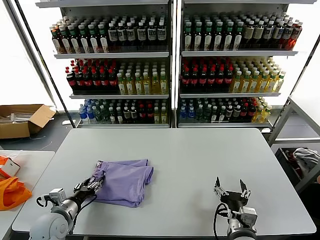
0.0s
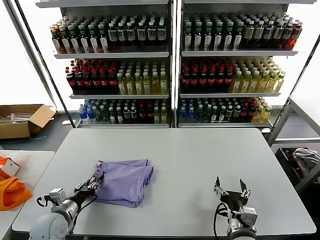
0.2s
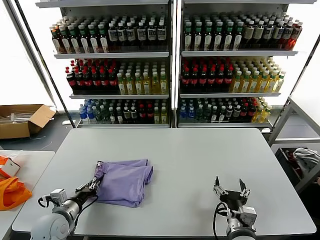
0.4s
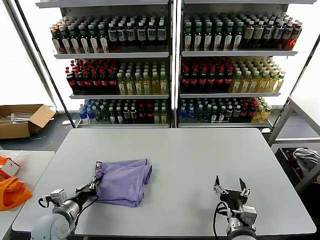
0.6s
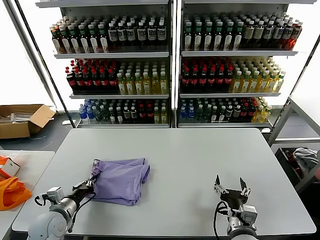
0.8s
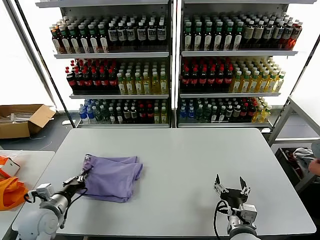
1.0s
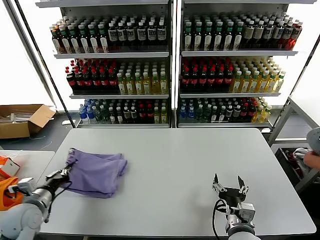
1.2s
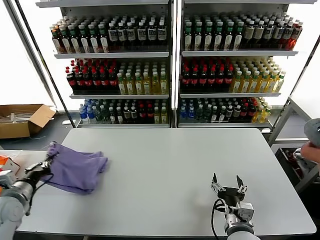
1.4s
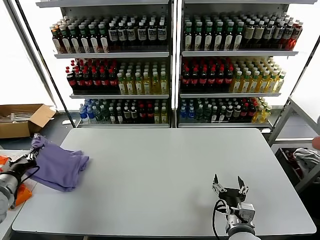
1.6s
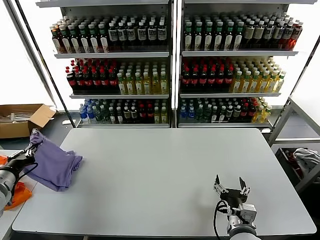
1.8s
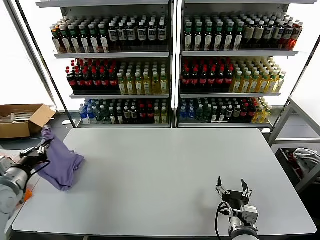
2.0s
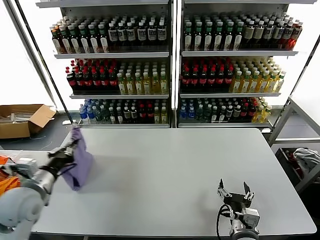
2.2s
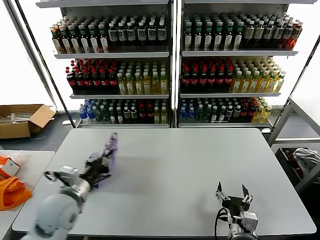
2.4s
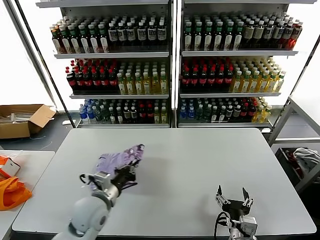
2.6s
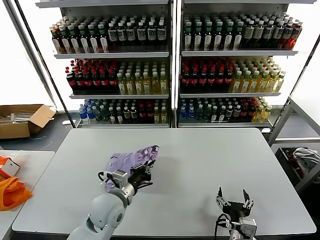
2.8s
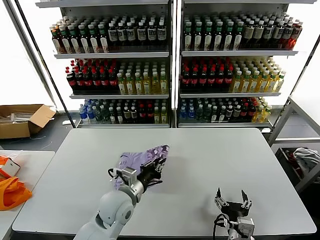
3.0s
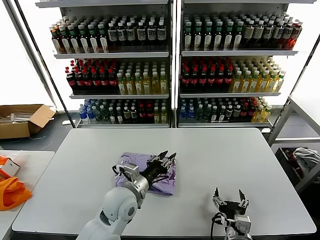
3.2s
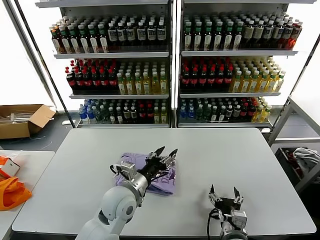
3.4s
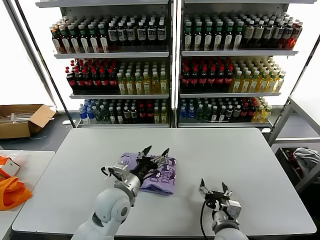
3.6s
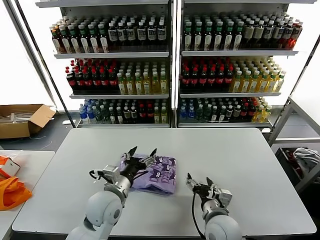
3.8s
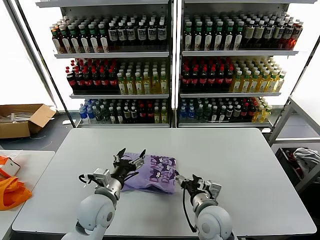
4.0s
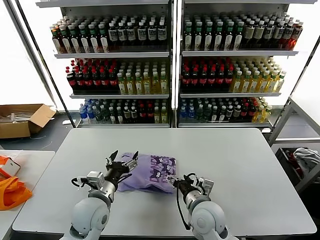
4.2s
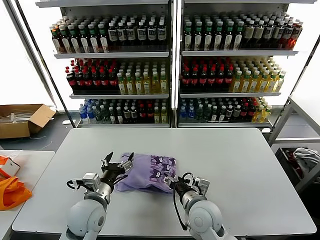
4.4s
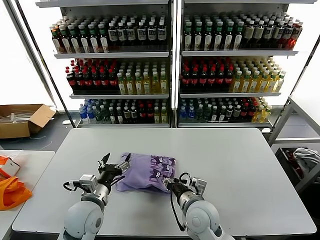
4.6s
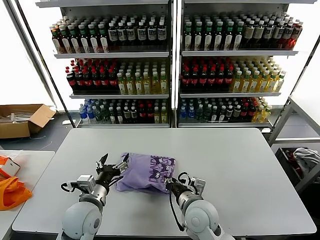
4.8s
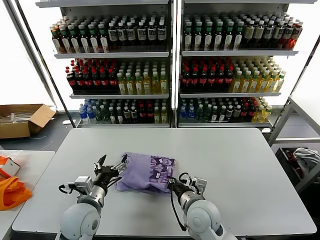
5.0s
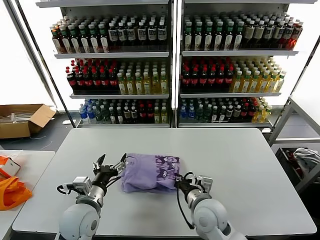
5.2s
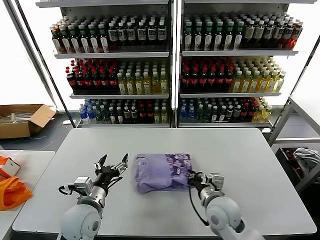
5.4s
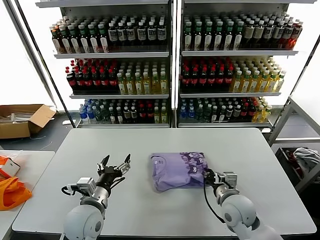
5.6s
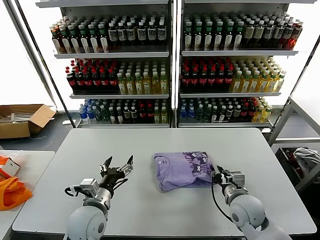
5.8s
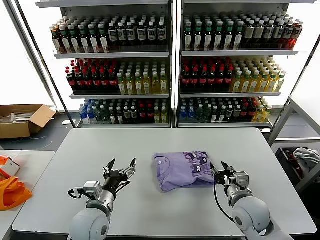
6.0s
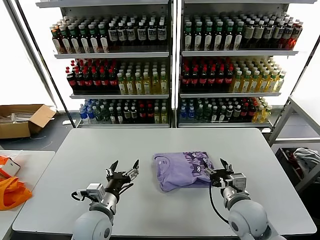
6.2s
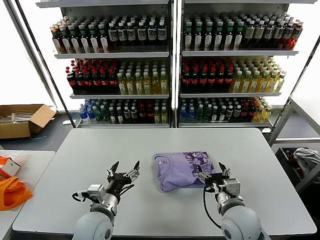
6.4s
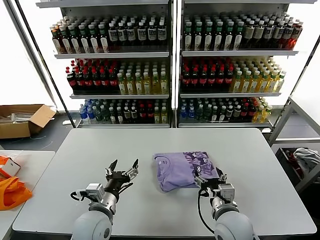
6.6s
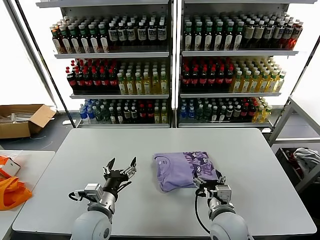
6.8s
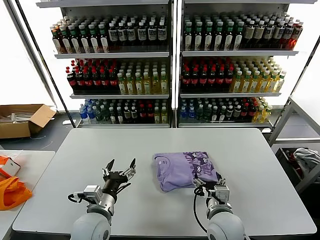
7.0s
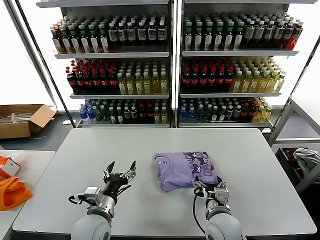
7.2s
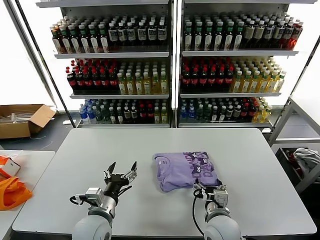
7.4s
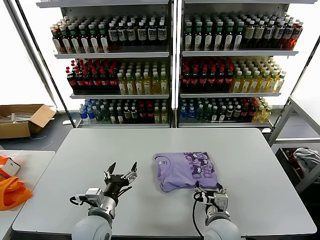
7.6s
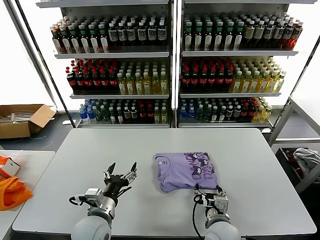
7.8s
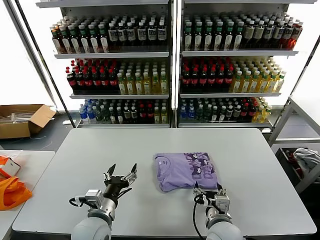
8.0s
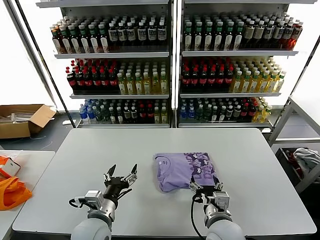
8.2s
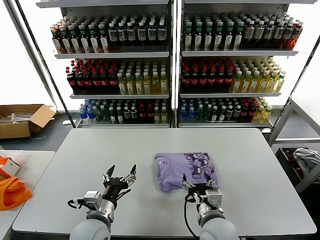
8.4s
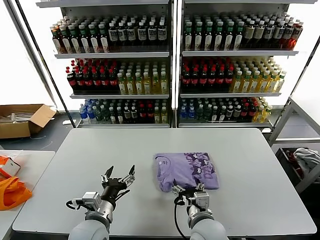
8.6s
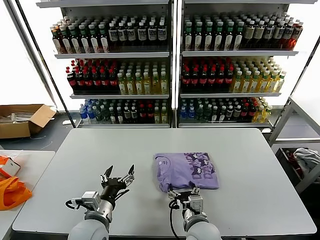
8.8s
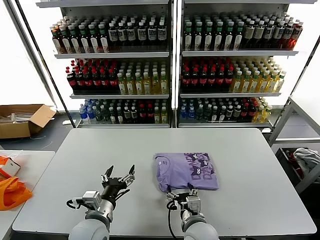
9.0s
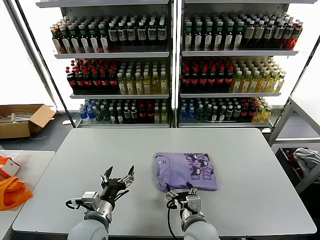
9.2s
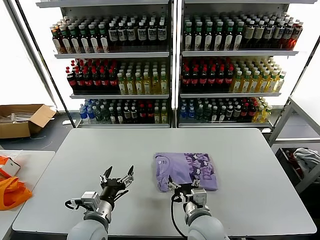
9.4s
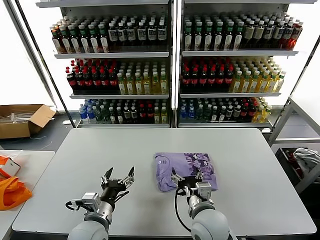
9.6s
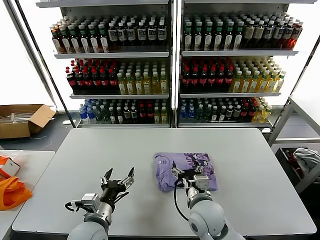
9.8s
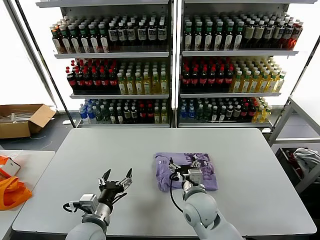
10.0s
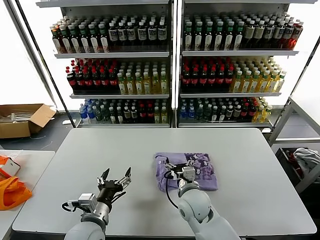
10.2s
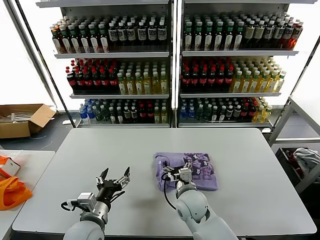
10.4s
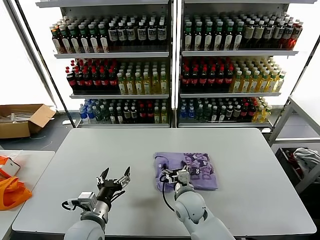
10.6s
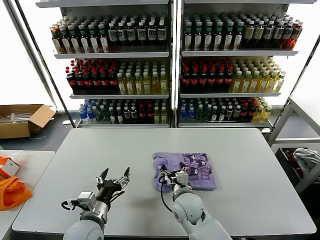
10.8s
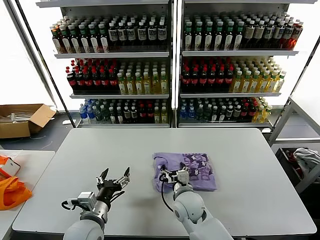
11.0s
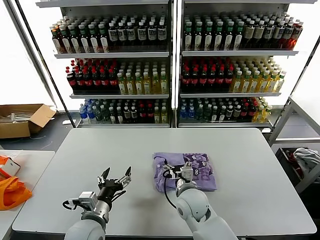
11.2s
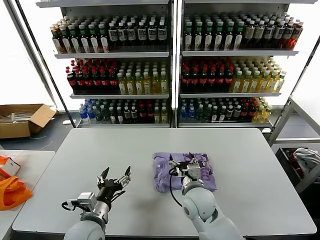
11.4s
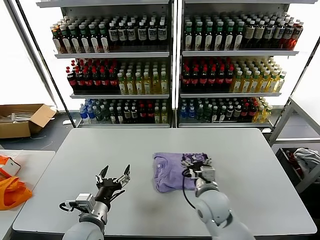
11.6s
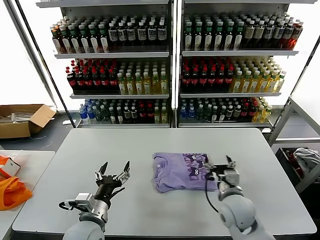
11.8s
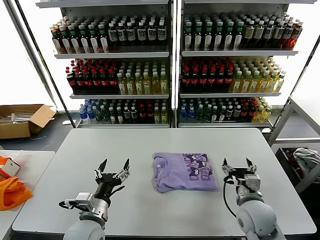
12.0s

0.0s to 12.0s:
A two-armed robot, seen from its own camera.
Task of the whole recording: fold and organize the clothes.
Step, 0.0s to 3.0s: Flip the folded clothes over with left gripper.
Step, 3.4s to 11.2s: Drag the clothes to the center of the table.
0.0s to 1.6s: The left gripper moves to the left and upward, some 20 cm, and closes.
1.6s to 3.0s: The left gripper moves to the right, about 35 cm.
3.0s to 4.4s: The left gripper travels to the left by approximately 5 cm, and opens up, while the right gripper travels forward and to the left by about 15 cm.
4.4s to 6.0s: The right gripper shifts approximately 15 cm to the right, and closes, then opens again.
6.0s to 7.6s: The right gripper shifts roughly 10 cm to the left, and opens up.
7.6s to 9.0s: The right gripper shifts about 5 cm to the left.
9.0s to 10.4s: The right gripper shifts roughly 10 cm forward.
10.4s to 12.0s: The right gripper is displaced to the right by about 15 cm.

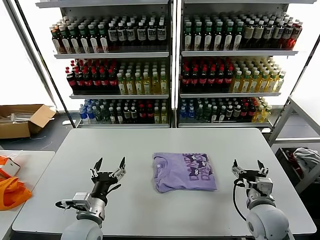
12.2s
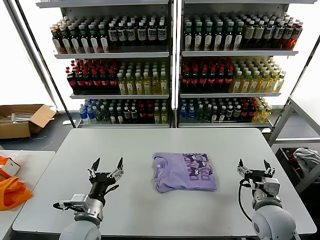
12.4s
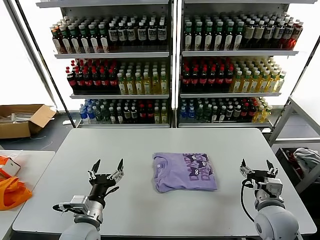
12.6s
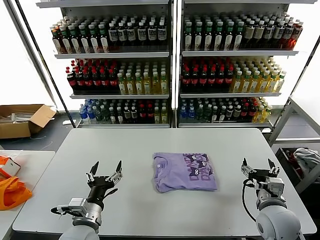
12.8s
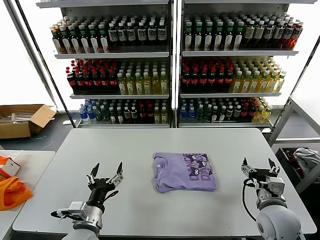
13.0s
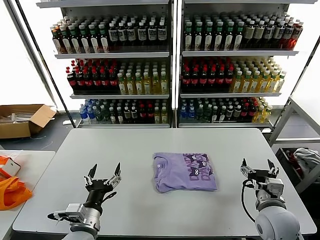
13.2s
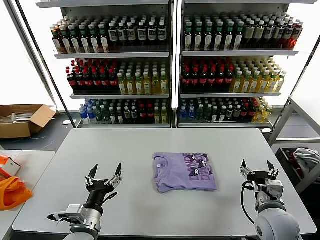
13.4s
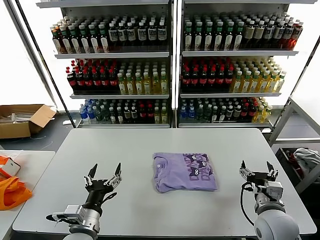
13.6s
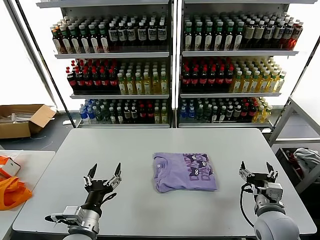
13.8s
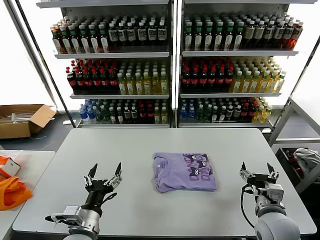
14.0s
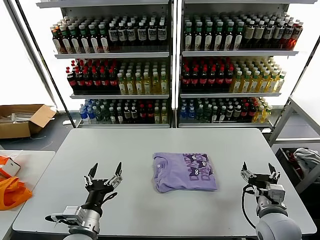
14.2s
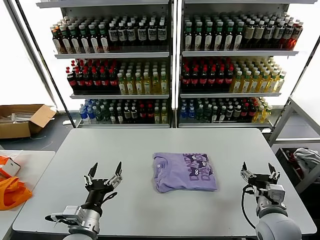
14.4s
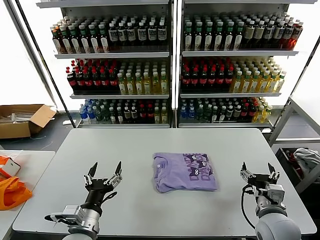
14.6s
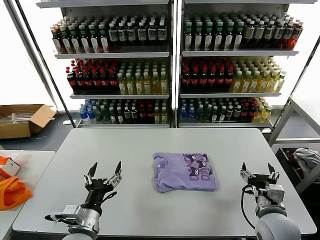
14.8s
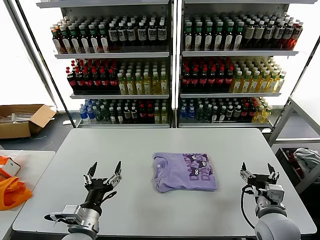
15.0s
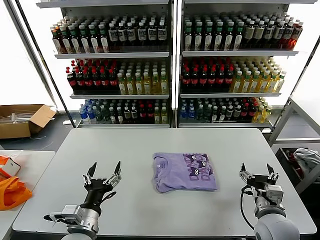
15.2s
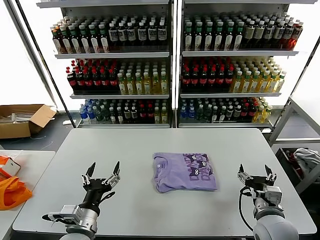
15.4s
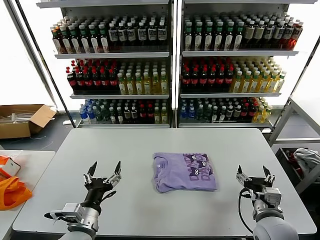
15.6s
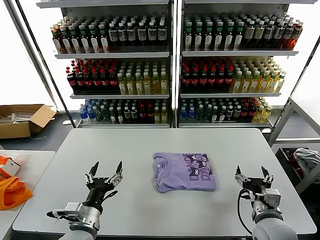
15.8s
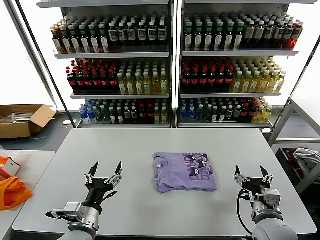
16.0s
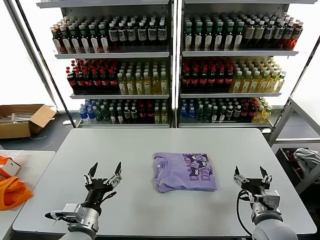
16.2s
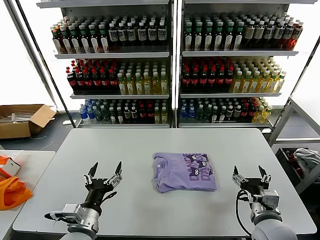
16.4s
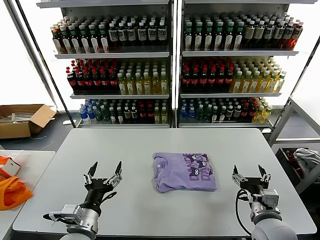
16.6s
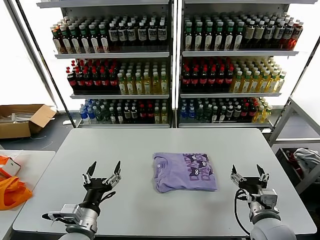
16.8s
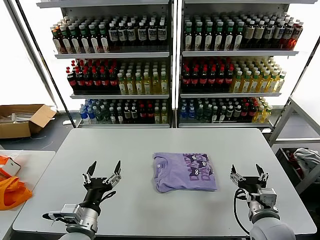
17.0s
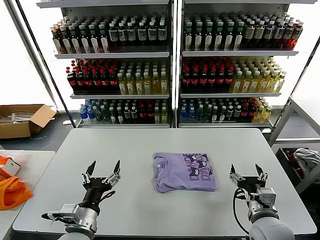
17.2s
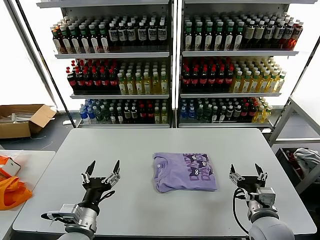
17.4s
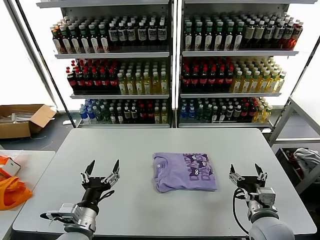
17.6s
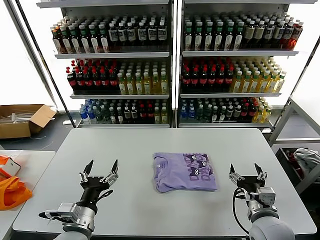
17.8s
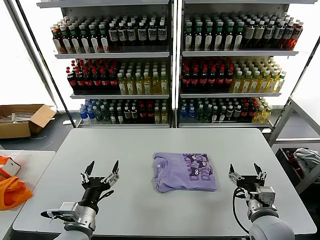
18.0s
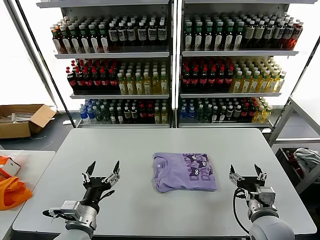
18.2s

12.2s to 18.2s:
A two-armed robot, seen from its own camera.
Task of the whole recording: fold and organize the clothes.
12.2s to 13.8s: There are only small adjustments of the grippers.
13.8s to 15.2s: The two grippers keep their place.
15.2s to 16.6s: The grippers stay close to where they were, moving slightly.
16.6s to 18.2s: Both grippers stay about where they are.

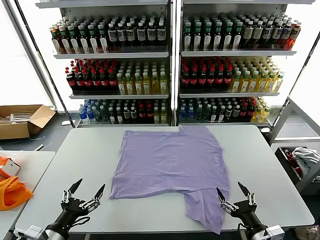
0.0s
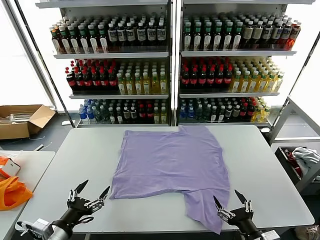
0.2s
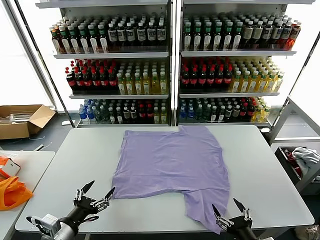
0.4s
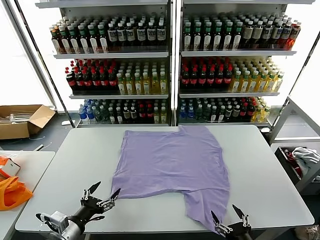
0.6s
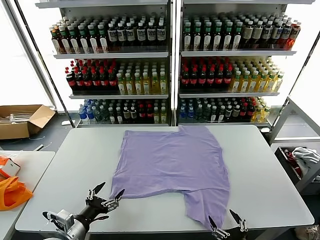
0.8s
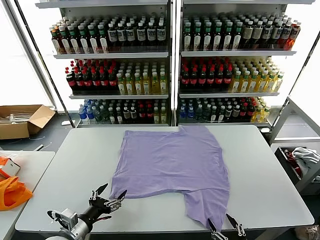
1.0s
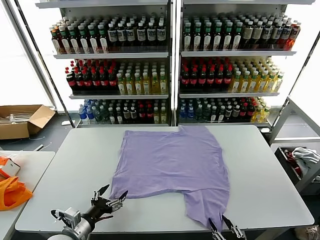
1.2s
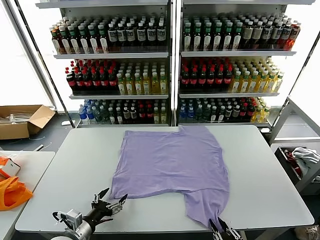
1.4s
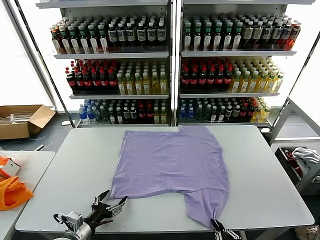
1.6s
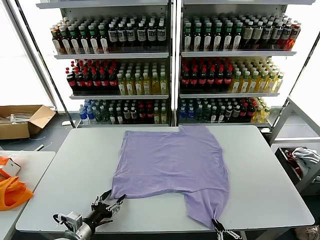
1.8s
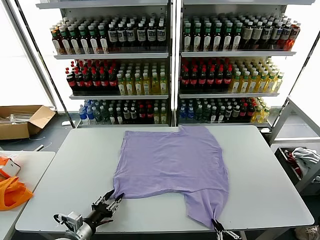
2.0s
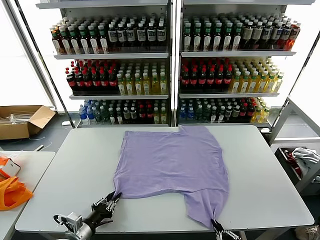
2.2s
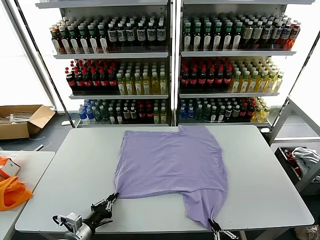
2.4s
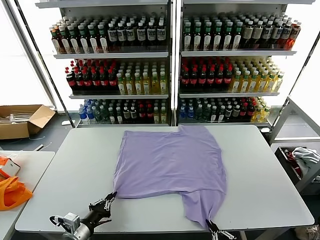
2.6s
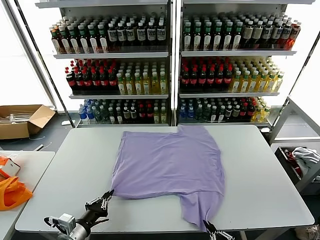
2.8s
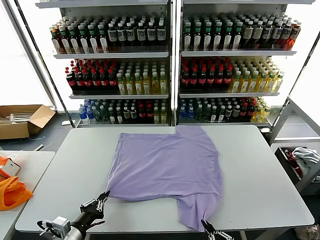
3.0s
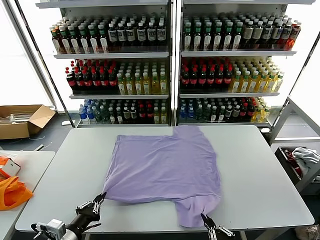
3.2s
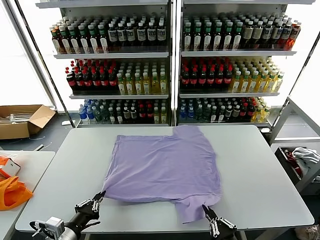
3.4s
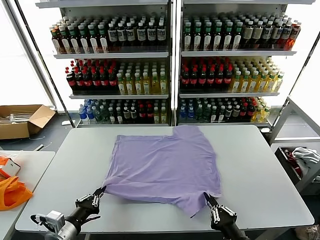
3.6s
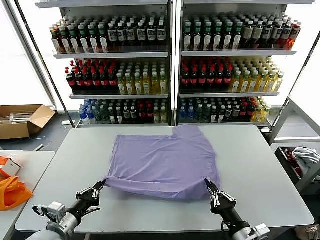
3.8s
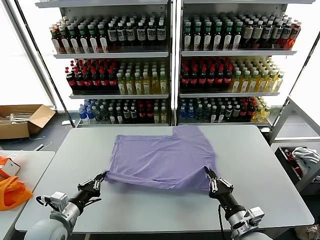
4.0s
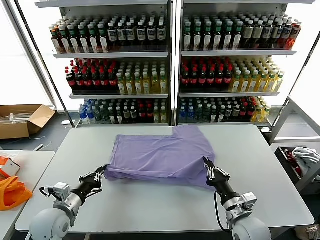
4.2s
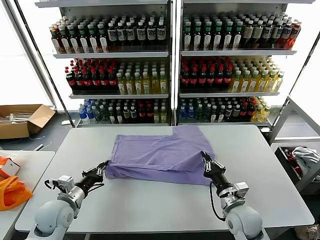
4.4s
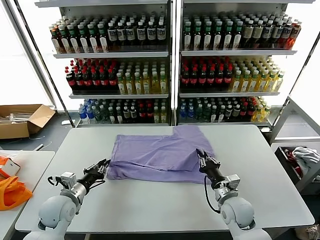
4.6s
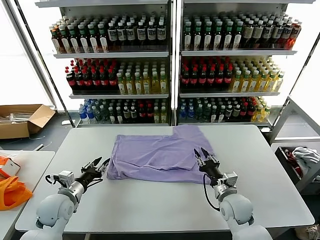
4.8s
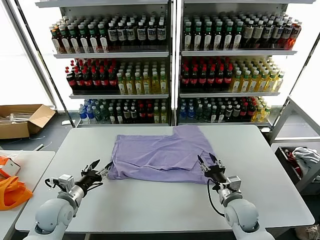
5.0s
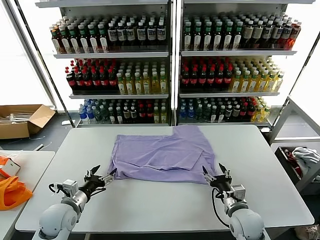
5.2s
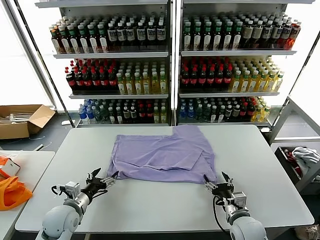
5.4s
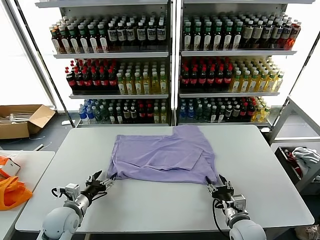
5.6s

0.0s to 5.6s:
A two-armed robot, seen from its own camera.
Task of the whole recording: fold and organize the clothes.
Step, 0.0s to 2.2s: use both grippers simultaneously to clamp the lower edge of the clothing fabric.
Step, 2.6s to 4.8s: use both grippers to drag the lower edge of the fabric forward and fold it over the upper edge.
1.4s to 2.8s: The left gripper closes its fingers.
2.8s to 4.2s: The left gripper moves forward, approximately 10 cm; the right gripper shifts roughly 20 cm forward.
4.2s to 5.6s: The left gripper moves roughly 5 cm, and opens up. Meanwhile the right gripper opens.
